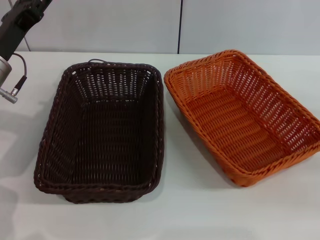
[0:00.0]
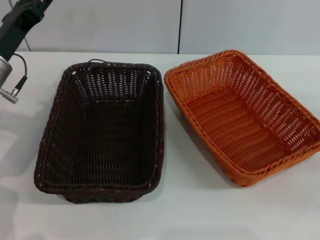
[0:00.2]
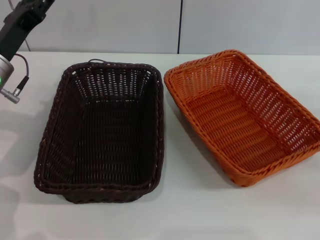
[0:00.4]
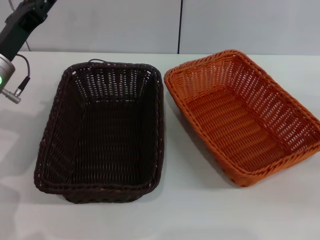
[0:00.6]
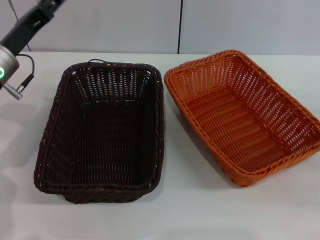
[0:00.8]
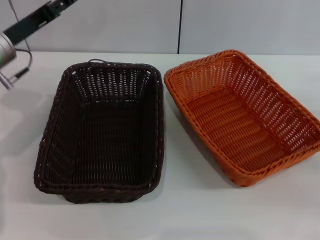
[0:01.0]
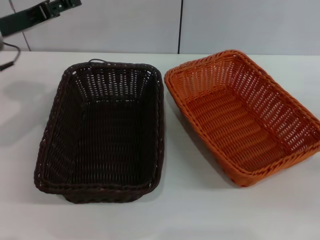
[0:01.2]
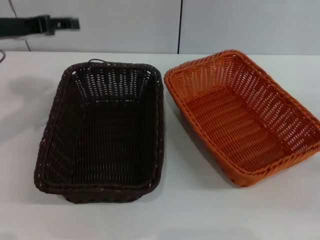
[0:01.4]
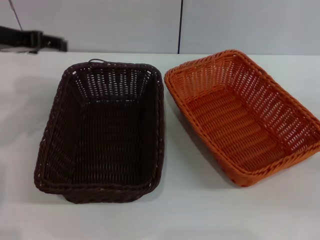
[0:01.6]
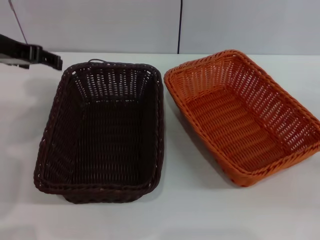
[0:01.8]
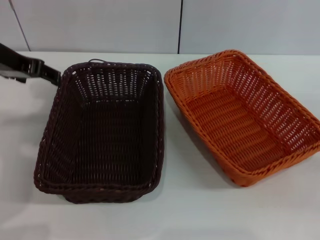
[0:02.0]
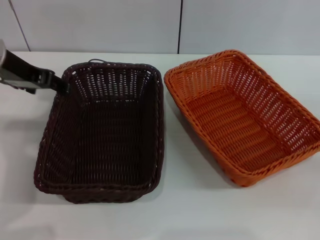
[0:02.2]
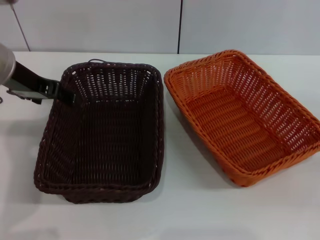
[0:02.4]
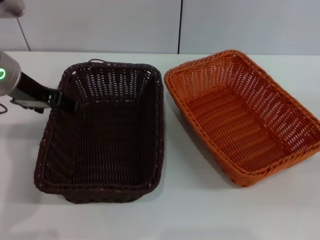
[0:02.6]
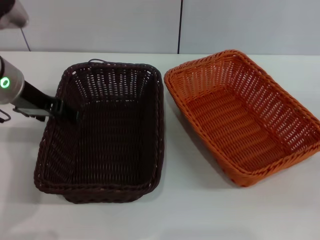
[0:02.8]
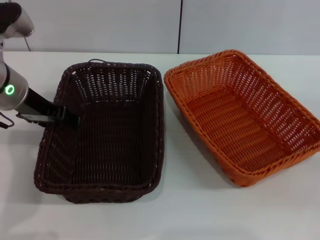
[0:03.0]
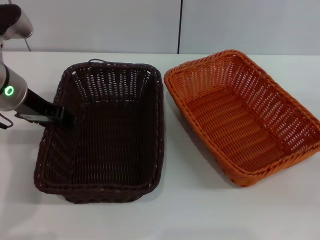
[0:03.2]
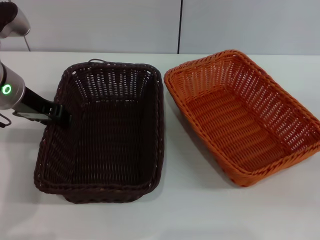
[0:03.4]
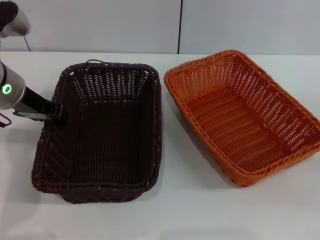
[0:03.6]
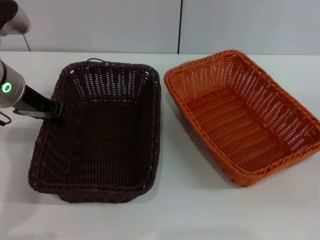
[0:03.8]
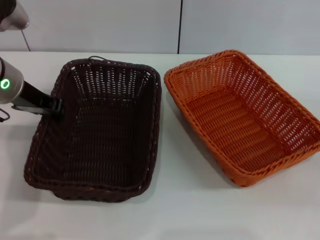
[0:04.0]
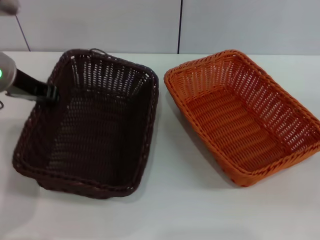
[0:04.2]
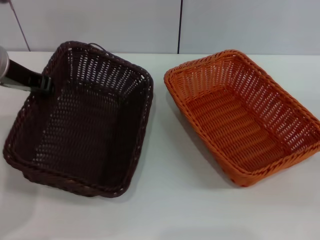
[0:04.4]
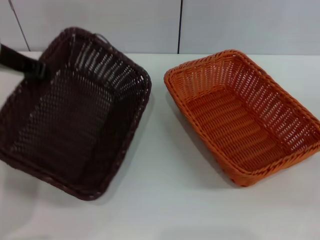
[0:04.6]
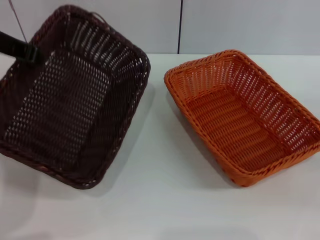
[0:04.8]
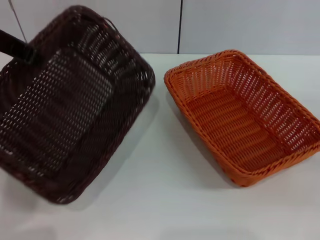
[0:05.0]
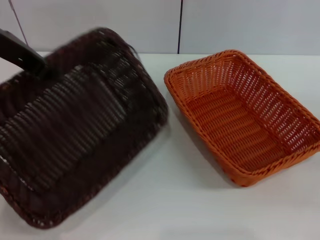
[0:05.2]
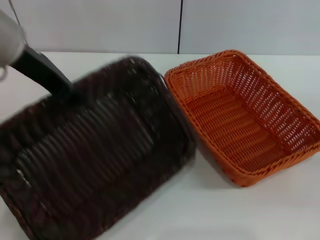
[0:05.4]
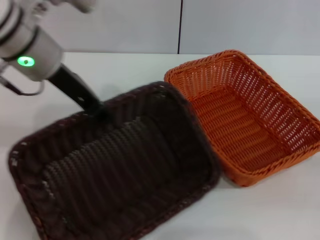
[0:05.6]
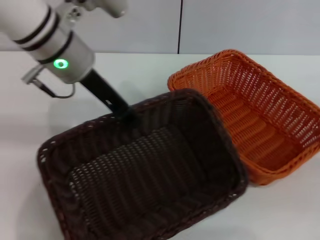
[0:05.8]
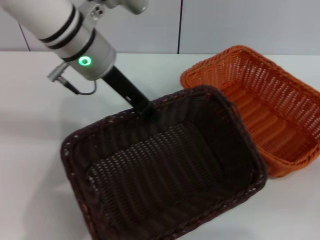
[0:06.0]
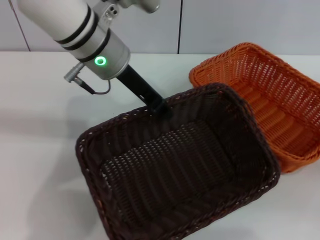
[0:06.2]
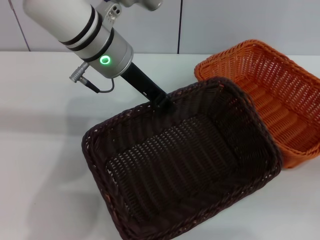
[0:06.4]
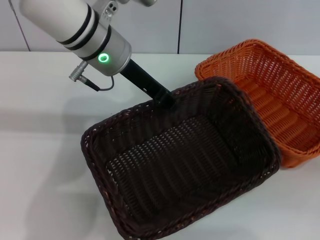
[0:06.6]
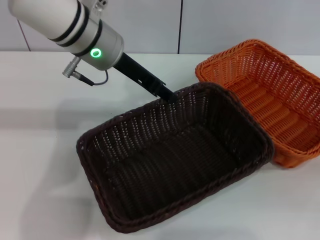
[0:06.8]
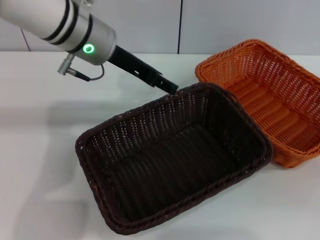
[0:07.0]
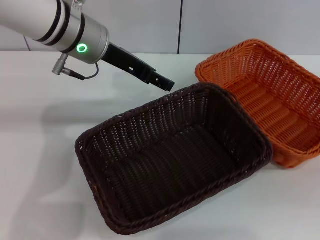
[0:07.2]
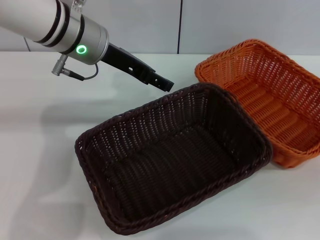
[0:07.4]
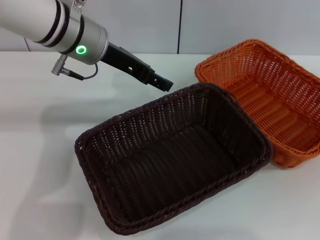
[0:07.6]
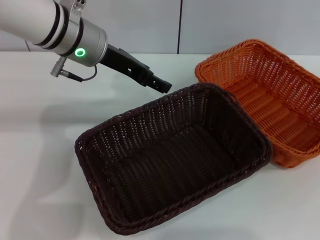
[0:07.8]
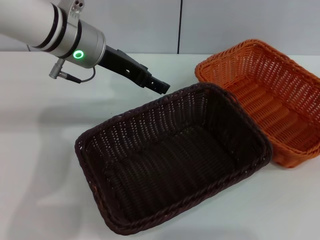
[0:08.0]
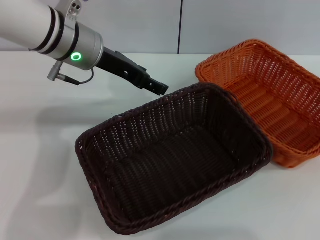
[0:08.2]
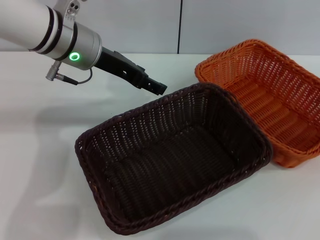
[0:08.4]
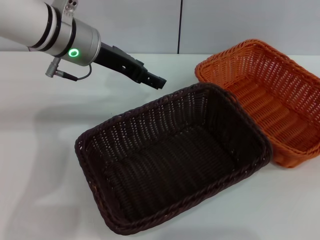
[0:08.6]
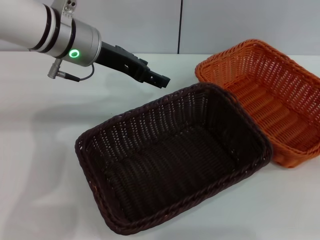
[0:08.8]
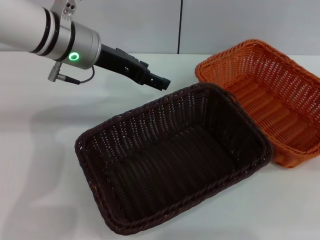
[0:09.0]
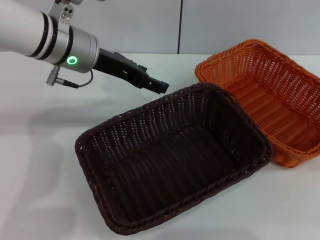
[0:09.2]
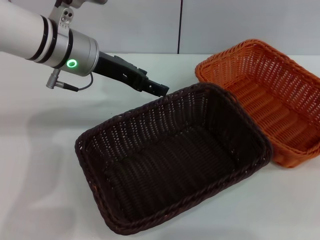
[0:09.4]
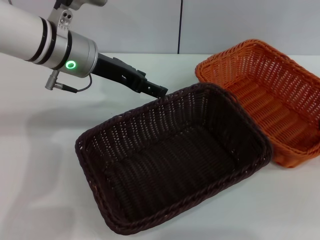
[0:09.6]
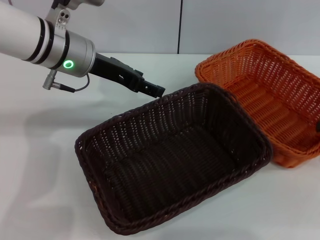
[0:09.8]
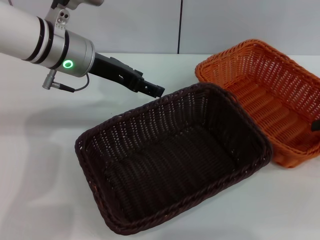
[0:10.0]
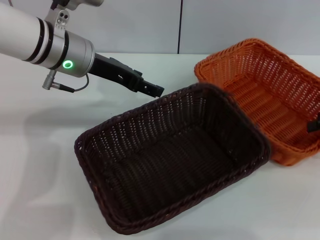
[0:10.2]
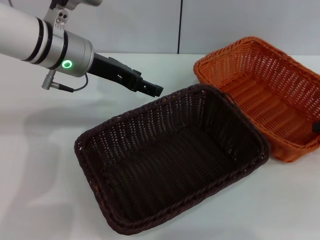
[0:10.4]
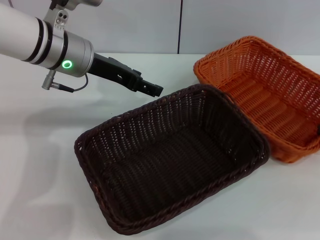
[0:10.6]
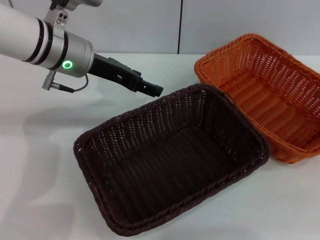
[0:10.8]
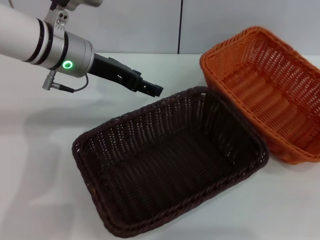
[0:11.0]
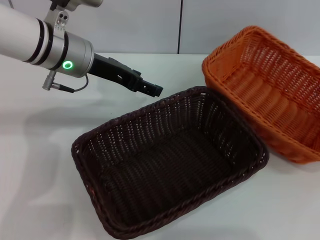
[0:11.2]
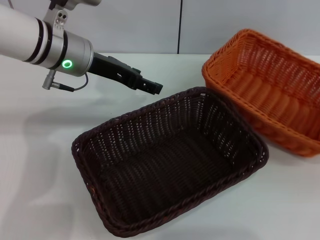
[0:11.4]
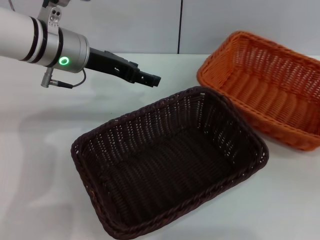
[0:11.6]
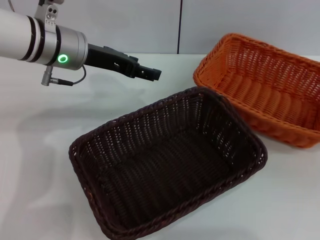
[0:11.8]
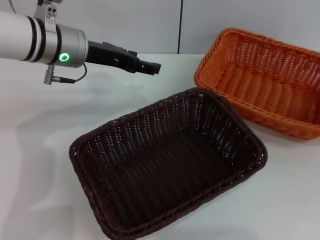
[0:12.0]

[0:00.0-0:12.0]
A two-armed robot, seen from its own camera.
Step, 0:00.0 to 0:04.2: Pick up the dark basket with the left gripper.
Step, 0:04.4 to 0:06.8: Place the dark basket in the center of view with the left gripper.
0:00.0 to 0:01.6: The left gripper is displaced upward by approximately 10 cm.
0:01.6 to 0:03.0: The left gripper goes approximately 5 cm to the right and downward.
0:03.0 to 0:04.4: The left gripper closes up.
0:04.4 to 0:06.0: The left gripper is displaced to the right by about 10 cm.
0:06.0 to 0:07.6: The right gripper heads upward and to the right, covering about 15 cm, while the left gripper opens up.
0:07.6 to 0:09.0: The right gripper is displaced to the left and upward by some 10 cm.
0:09.0 to 0:10.4: The right gripper heads downward, covering approximately 5 cm.
0:10.4 to 0:12.0: The right gripper ends up about 5 cm from where it was, and closes.

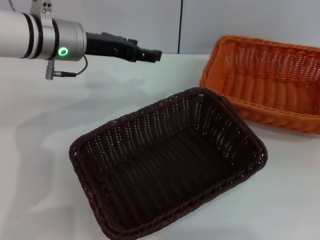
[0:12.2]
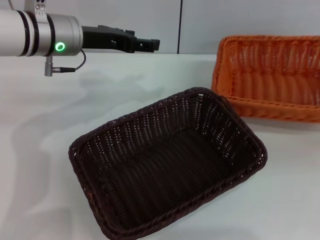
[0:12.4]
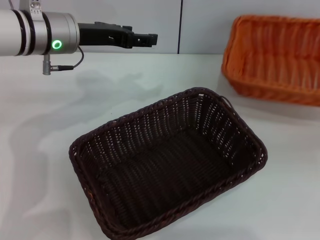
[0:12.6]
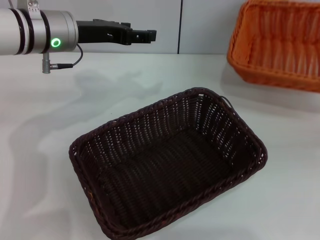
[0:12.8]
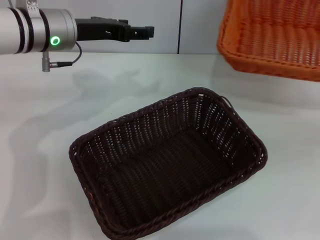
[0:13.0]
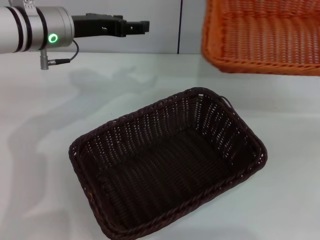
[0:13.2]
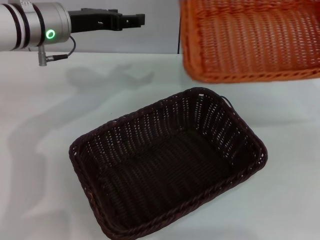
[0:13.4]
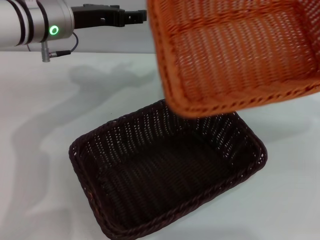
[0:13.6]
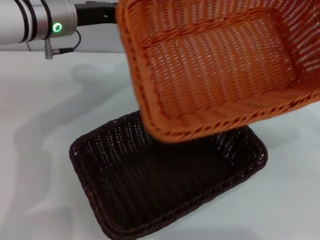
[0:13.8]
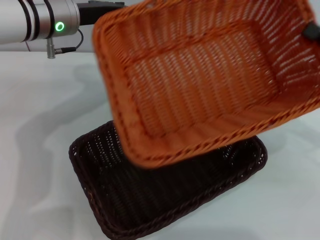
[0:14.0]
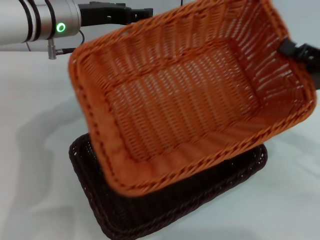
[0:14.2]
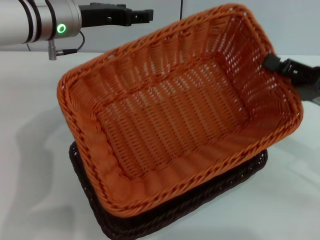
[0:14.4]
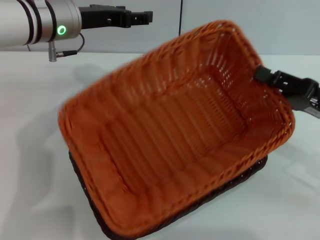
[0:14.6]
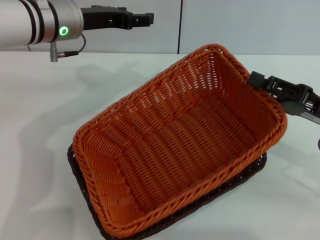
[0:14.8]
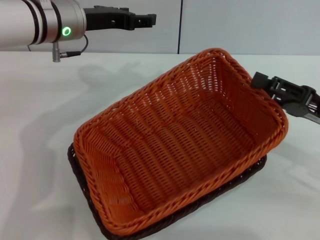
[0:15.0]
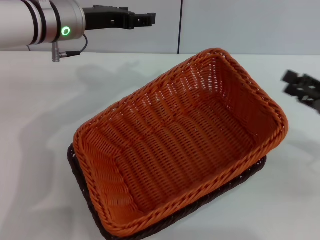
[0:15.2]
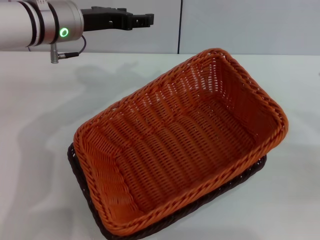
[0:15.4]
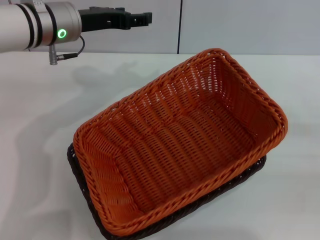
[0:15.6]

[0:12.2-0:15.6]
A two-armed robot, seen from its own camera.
Step, 0:12.6 to 0:15.0: Place the light basket on the dark basket with the right gripper.
0:12.2 to 0:13.8: The right gripper is displaced to the left by approximately 5 cm.
0:13.8 to 0:15.6: The right gripper heads to the right and downward, covering approximately 10 cm, and opens up.
